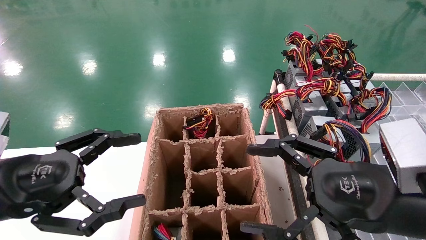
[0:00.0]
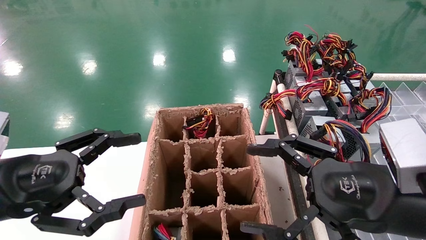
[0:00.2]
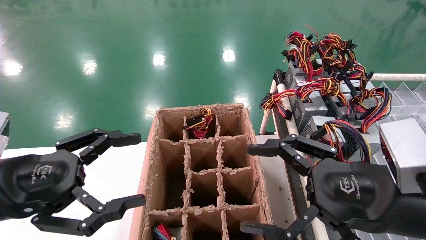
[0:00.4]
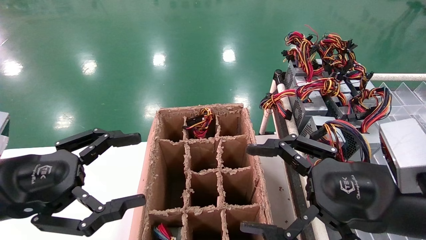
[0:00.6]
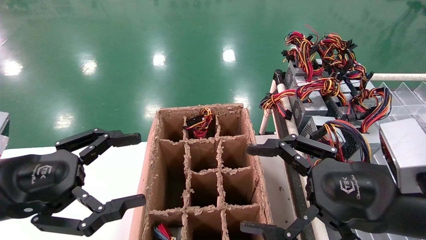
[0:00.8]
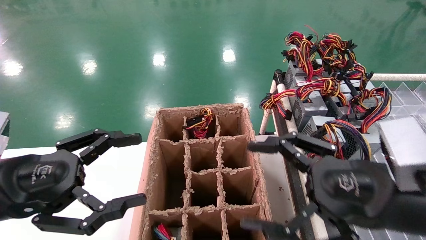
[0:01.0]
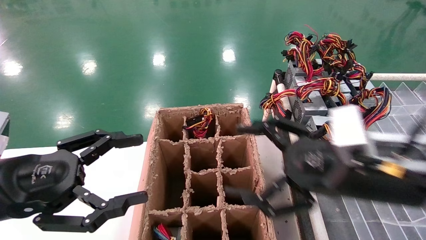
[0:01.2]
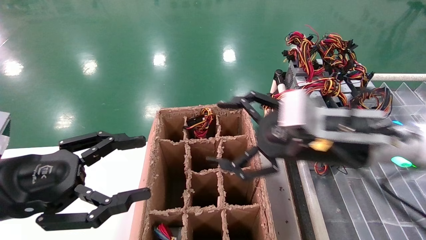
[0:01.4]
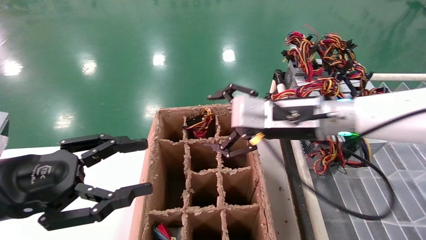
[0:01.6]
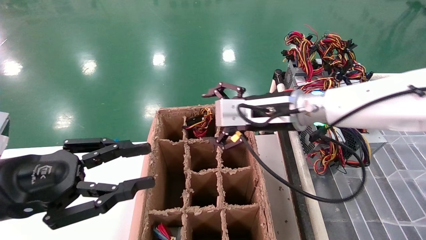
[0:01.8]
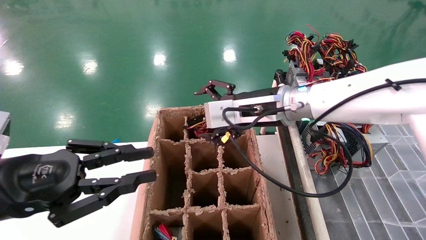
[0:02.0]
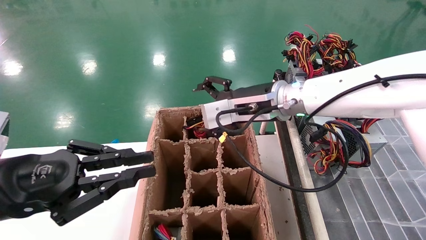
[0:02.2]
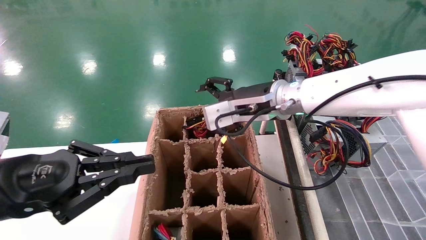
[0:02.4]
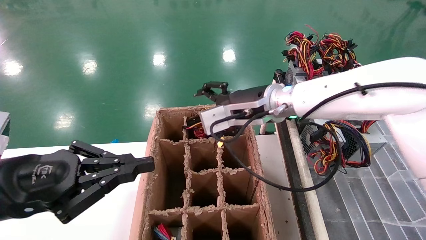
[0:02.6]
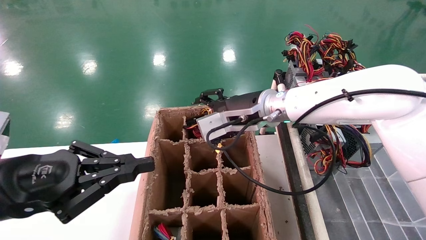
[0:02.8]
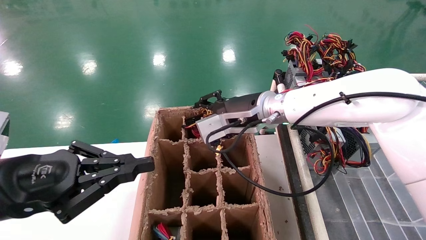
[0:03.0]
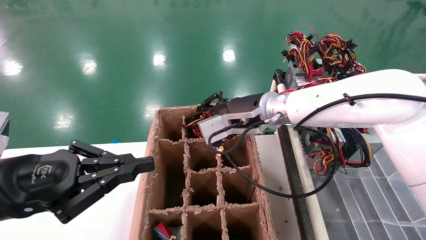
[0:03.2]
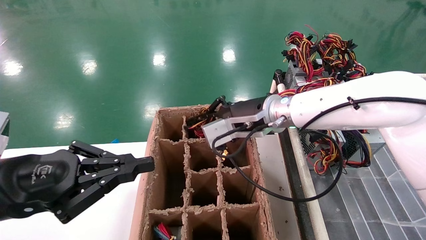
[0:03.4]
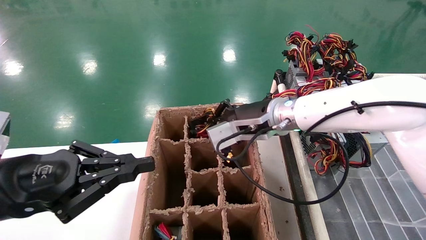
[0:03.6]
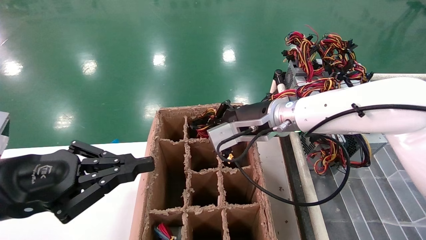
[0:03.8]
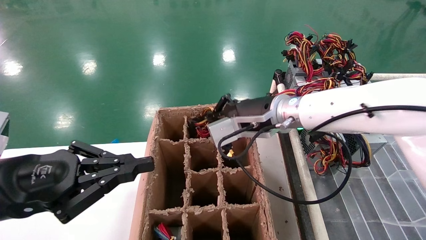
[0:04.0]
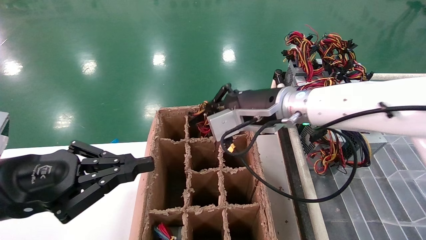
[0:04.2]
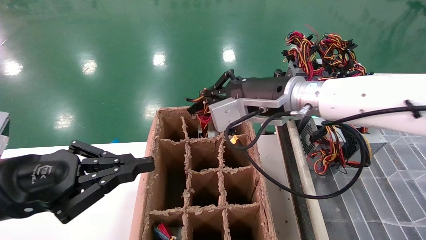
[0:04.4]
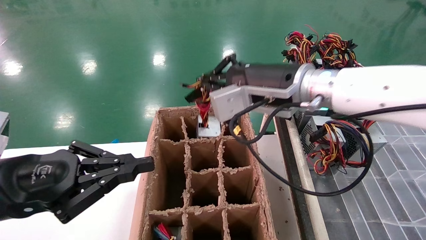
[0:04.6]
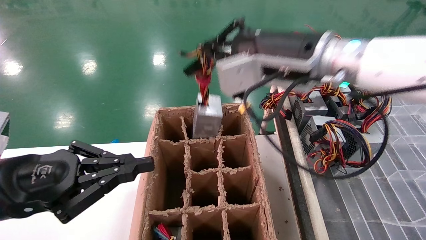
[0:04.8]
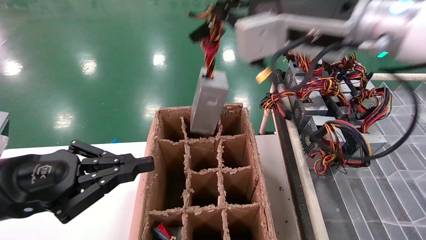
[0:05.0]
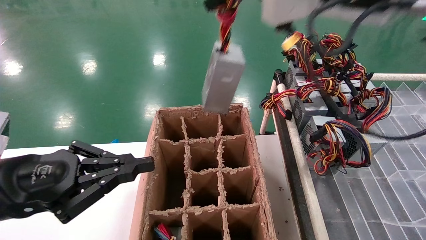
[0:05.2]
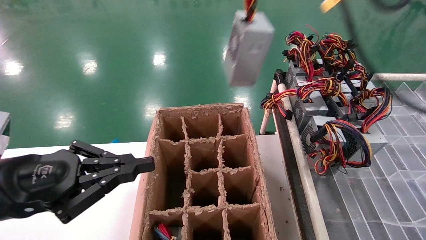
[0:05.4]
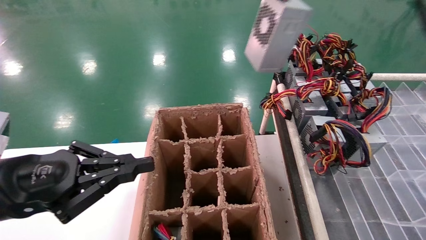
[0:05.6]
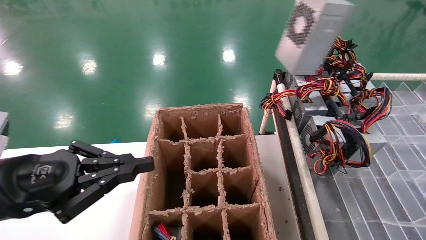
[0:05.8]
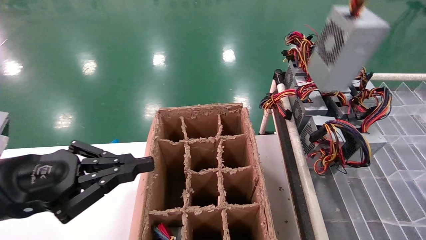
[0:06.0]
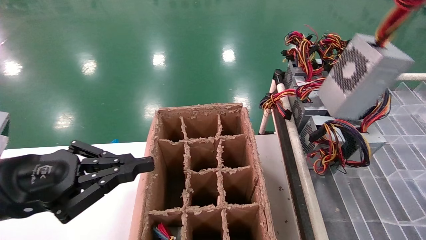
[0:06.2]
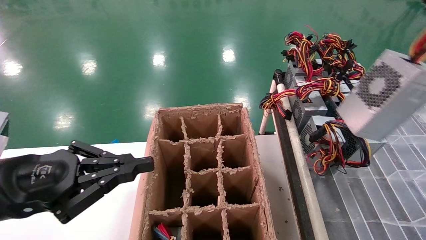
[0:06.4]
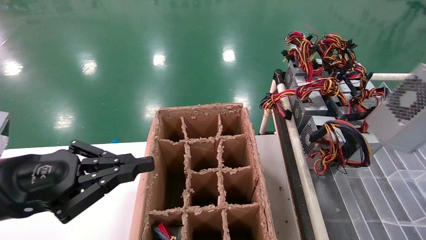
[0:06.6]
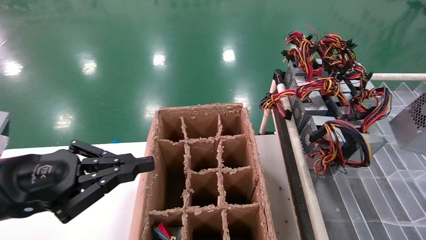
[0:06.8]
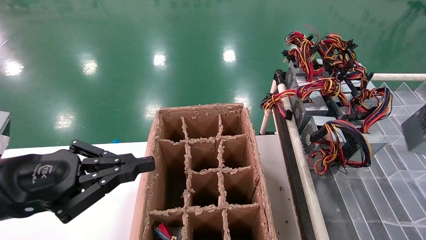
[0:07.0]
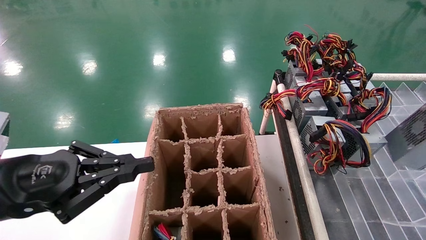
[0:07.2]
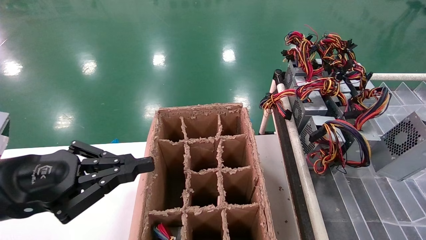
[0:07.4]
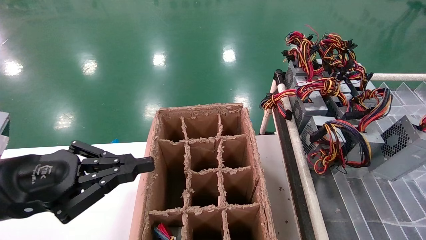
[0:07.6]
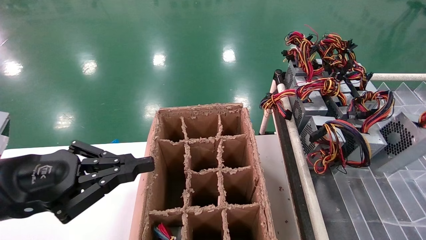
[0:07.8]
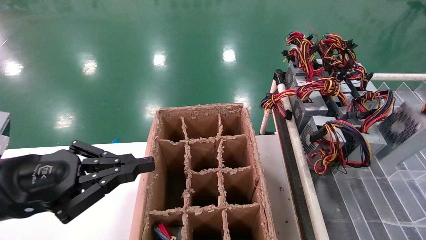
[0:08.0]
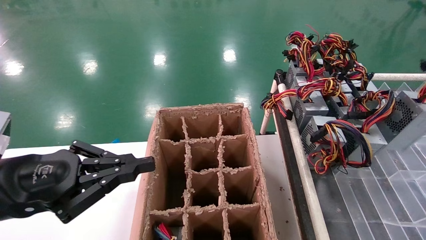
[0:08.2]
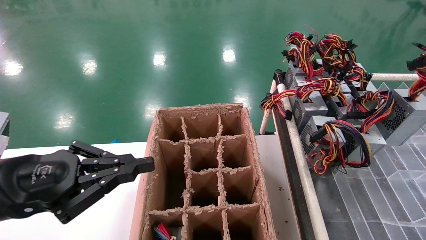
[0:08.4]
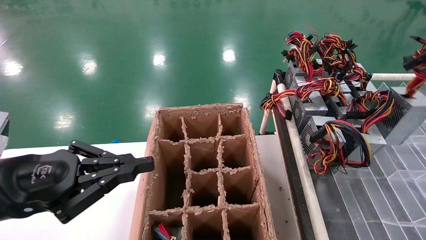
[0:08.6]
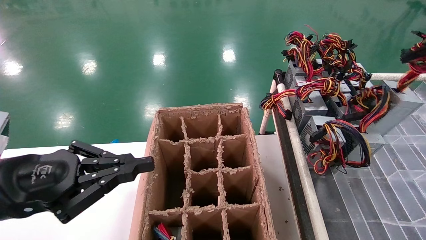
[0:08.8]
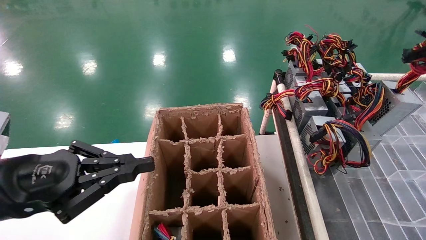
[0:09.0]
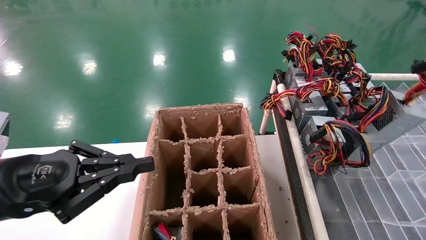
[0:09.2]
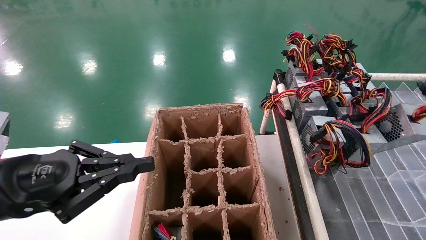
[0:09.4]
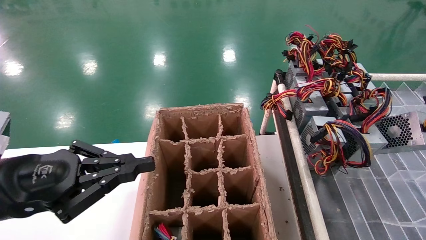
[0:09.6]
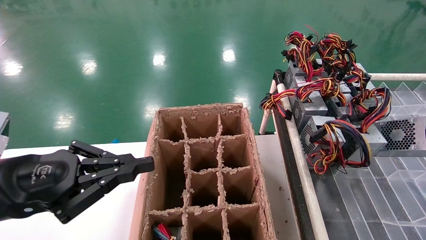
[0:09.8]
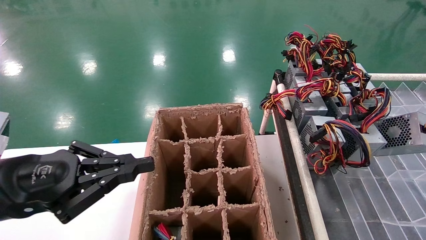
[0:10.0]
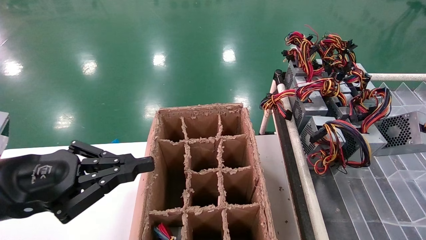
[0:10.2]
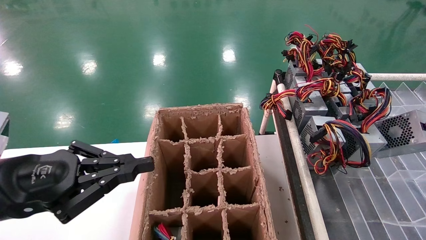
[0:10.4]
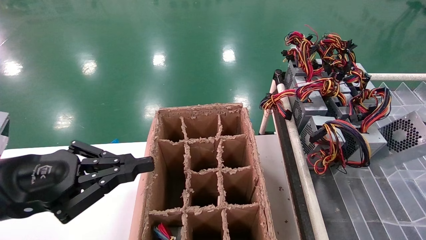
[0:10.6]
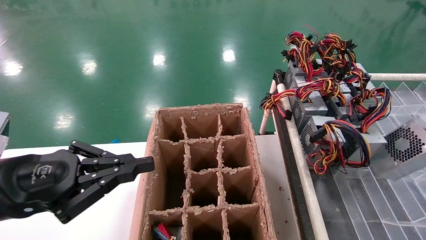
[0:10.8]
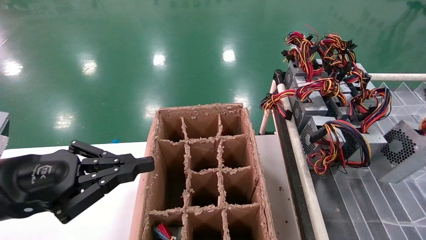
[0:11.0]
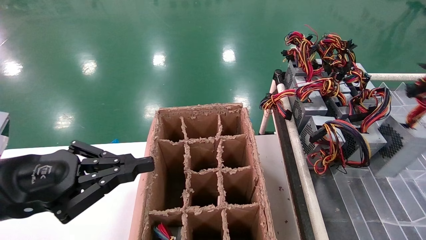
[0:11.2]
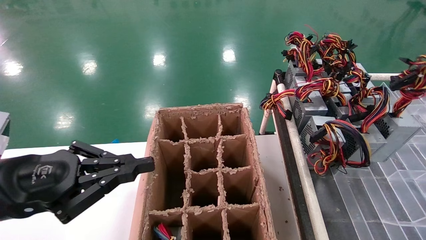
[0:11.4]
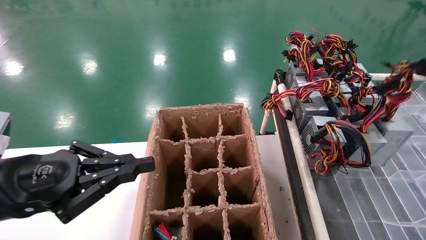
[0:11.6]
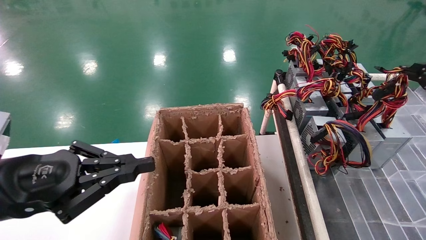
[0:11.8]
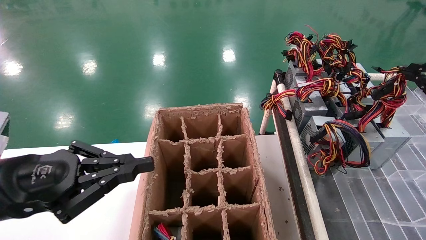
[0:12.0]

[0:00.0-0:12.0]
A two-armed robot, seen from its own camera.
Step, 0:01.4 to 0:03.8: Grab the main unit power supply from the containment box.
0:00.0 to 0:01.6: The right gripper goes roughly 15 cm forward and to the left.
0:01.6 to 0:03.0: The right gripper moves forward and to the left, some 10 cm, and closes its fingers; the left gripper closes its fingers.
0:03.0 to 0:04.4: The right gripper heads backward, covering approximately 5 cm, and closes its fingers.
0:04.4 to 0:06.0: The right gripper heads backward, to the right and upward, covering approximately 35 cm.
0:06.0 to 0:07.6: The right gripper heads to the right and downward, covering roughly 20 cm.
0:07.6 to 0:09.0: The right gripper moves forward, roughly 5 cm.
0:09.0 to 0:10.4: The right gripper heads backward, covering roughly 5 cm.
0:10.4 to 0:12.0: The right gripper goes some 10 cm forward and to the left.

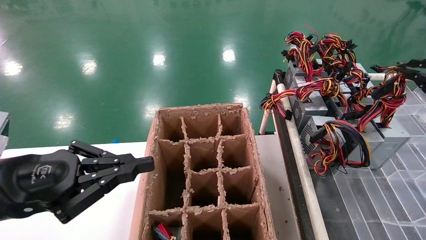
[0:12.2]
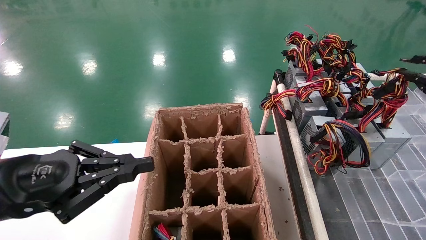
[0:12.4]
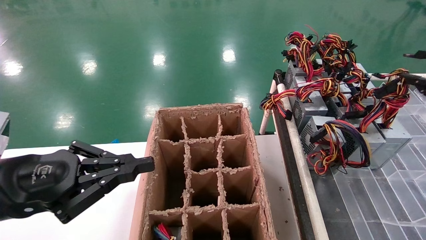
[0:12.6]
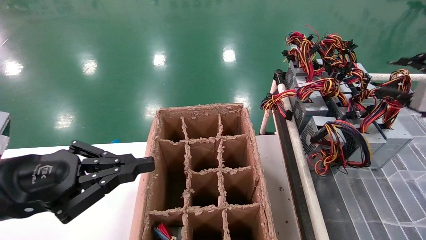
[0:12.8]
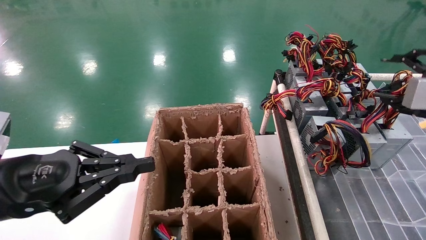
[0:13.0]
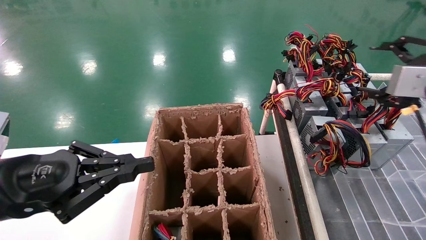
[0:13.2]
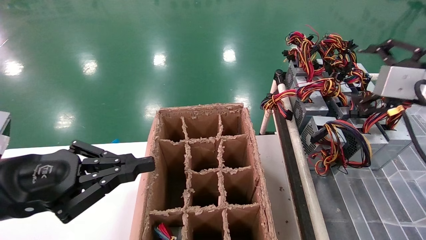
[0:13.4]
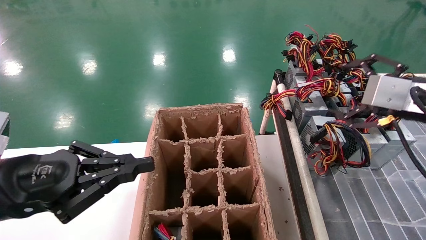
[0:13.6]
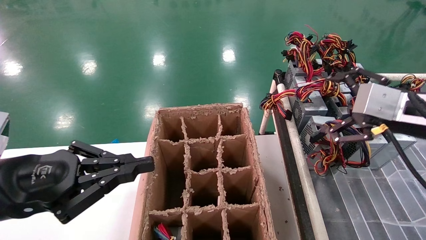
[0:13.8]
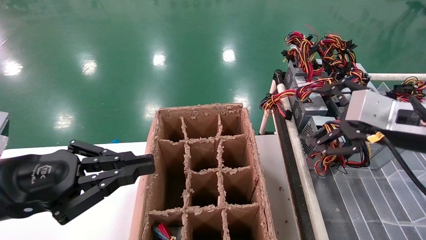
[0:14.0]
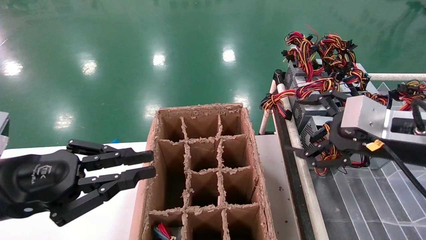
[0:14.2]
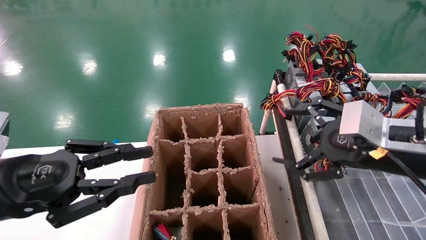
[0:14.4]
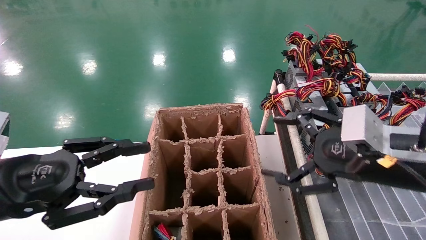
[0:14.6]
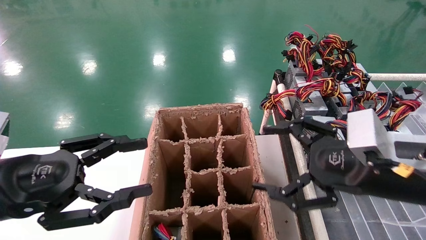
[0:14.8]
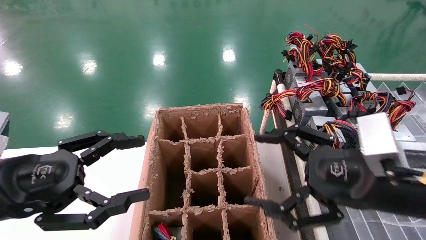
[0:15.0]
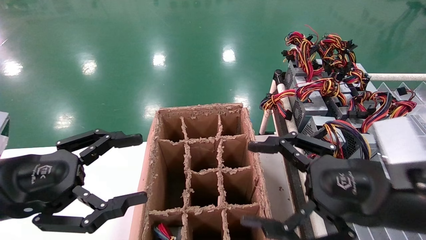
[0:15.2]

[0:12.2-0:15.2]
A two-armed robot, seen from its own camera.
0:12.2 to 0:13.8: The right gripper shifts approximately 10 cm to the left, and opens.
0:13.8 to 0:15.2: The left gripper opens its fingers. Meanwhile the right gripper is displaced to the left, backward and downward by about 15 cm.
